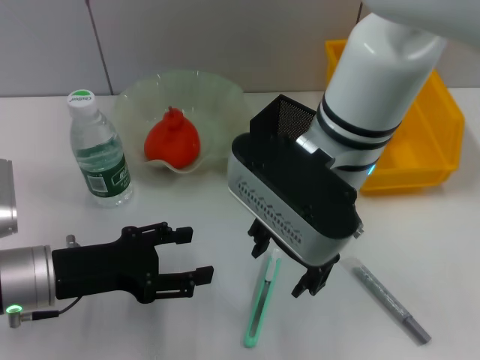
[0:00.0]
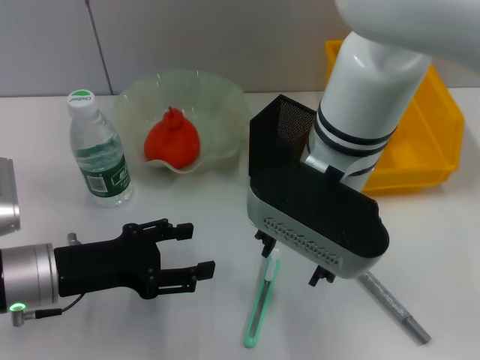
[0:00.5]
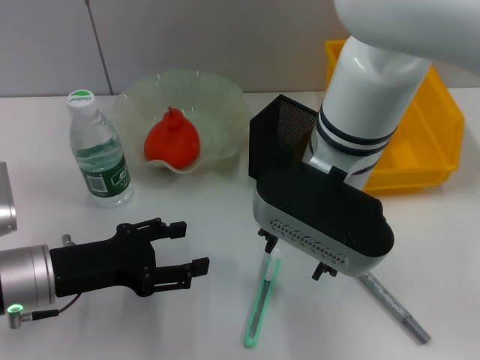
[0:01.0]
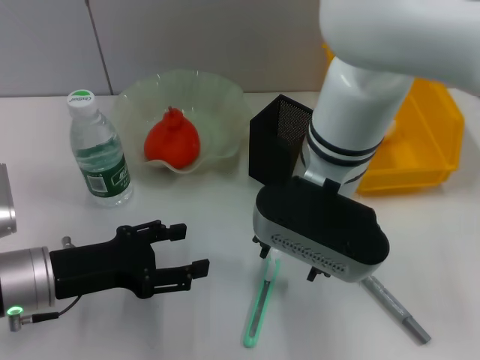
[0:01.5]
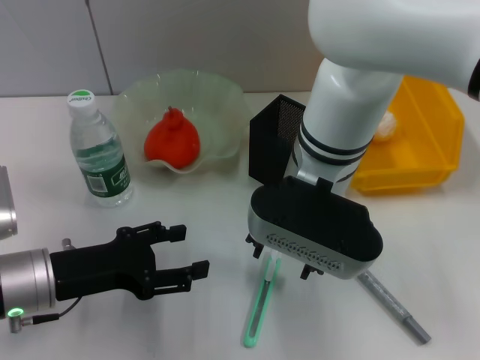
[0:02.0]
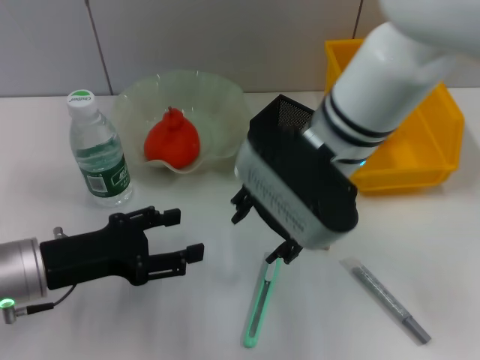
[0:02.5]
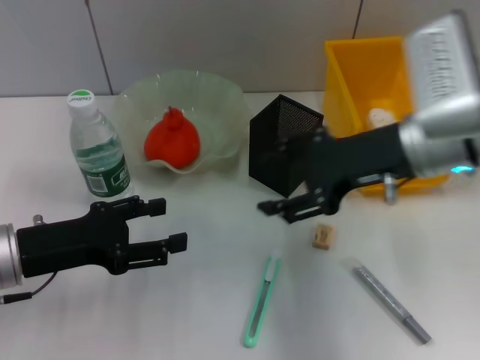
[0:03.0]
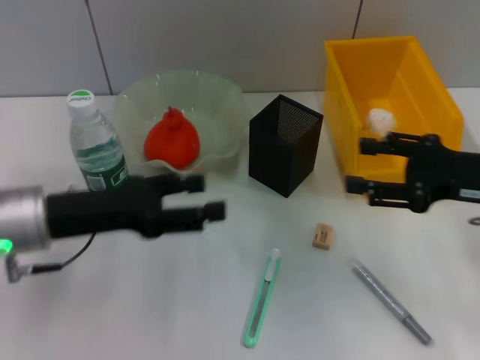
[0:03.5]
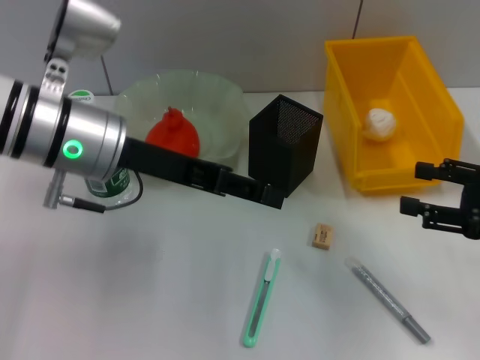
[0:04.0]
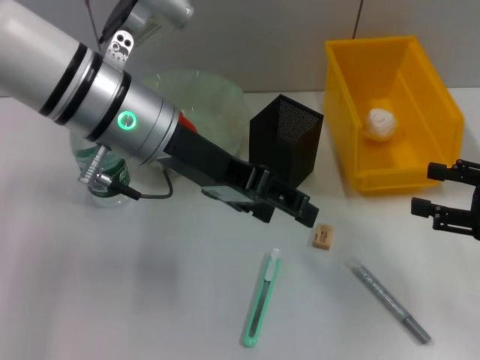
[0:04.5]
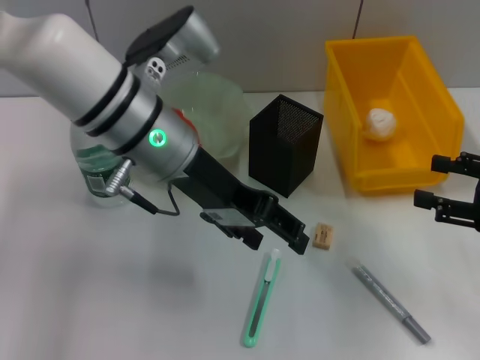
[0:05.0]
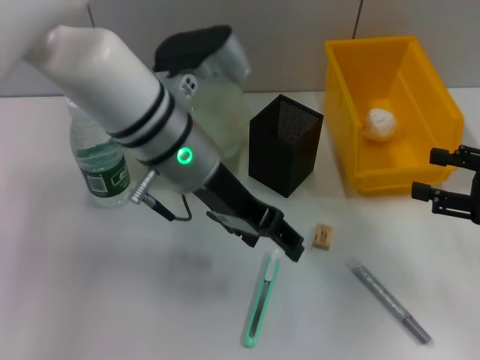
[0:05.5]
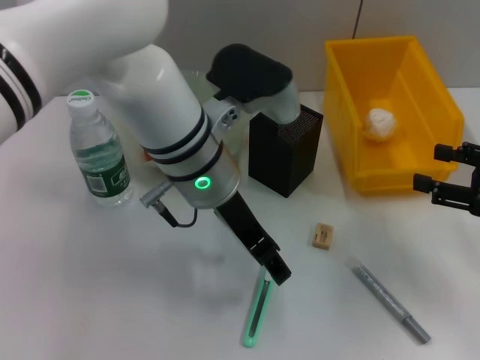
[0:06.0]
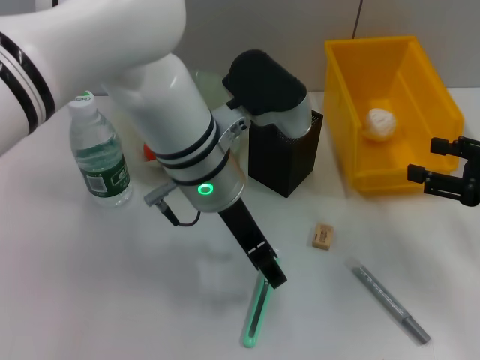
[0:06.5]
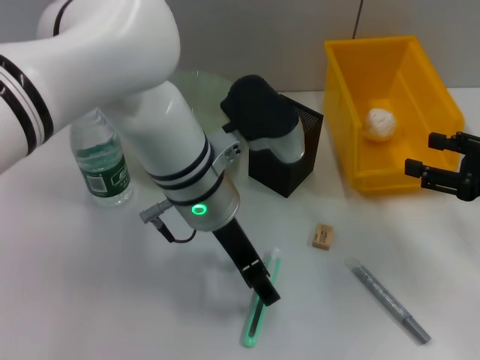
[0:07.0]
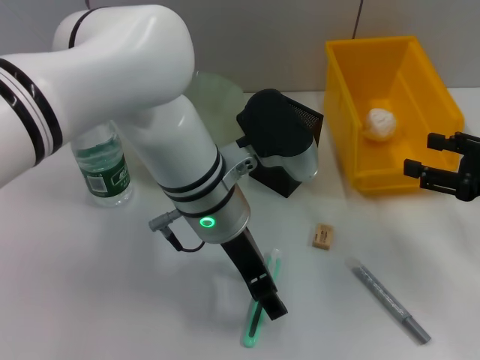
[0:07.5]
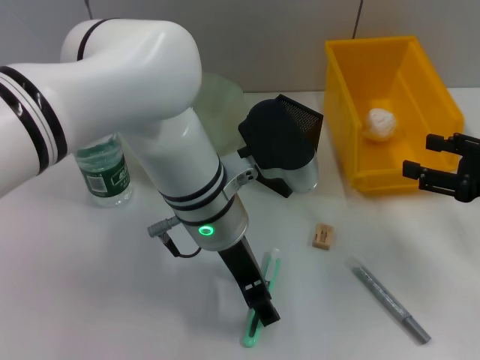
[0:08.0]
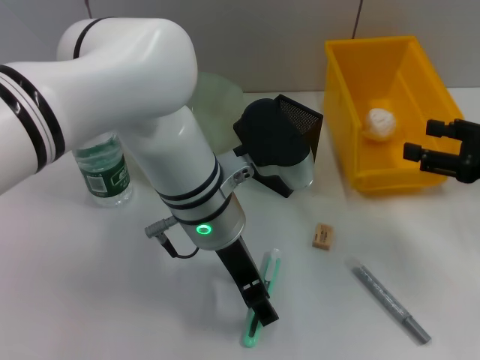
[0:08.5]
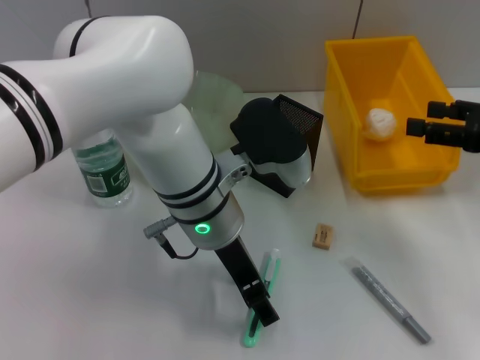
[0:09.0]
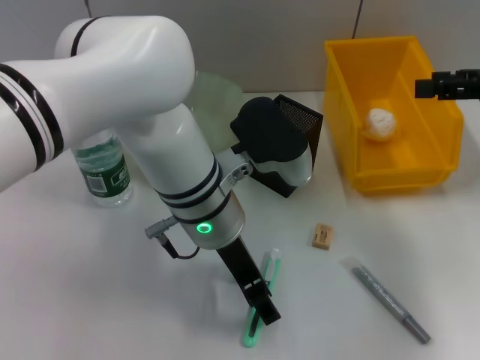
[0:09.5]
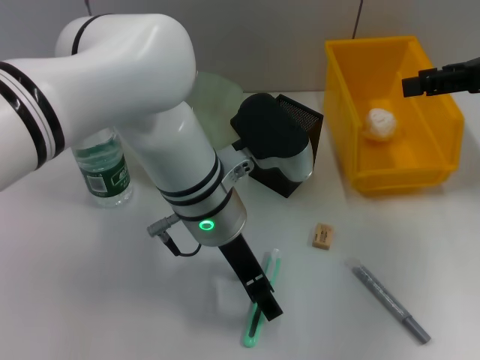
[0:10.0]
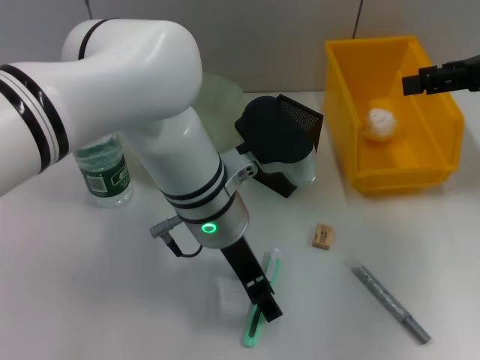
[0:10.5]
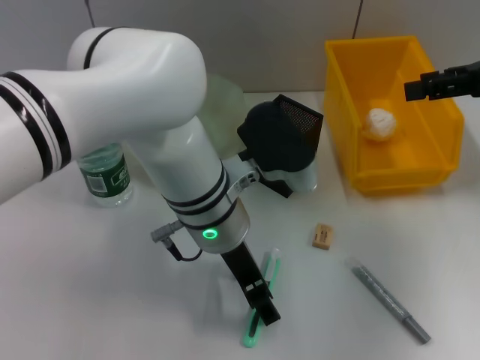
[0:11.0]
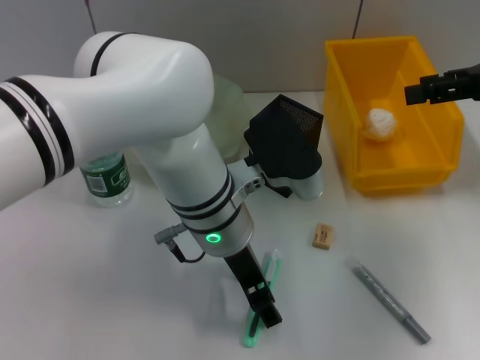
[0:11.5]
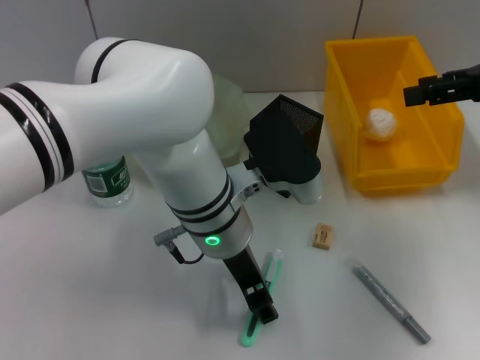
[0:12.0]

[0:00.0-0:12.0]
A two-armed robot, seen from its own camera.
0:02.0 to 0:04.0: The right gripper heads to the right, covering roughly 30 cm, while the left gripper heads upward, to the right and forward, covering about 15 cm.
0:04.0 to 0:06.0: The left gripper shifts some 10 cm to the right.
0:08.0 to 0:10.0: The right gripper goes about 15 cm upward and forward.
0:10.0 to 0:12.0: The grippers move only a little.

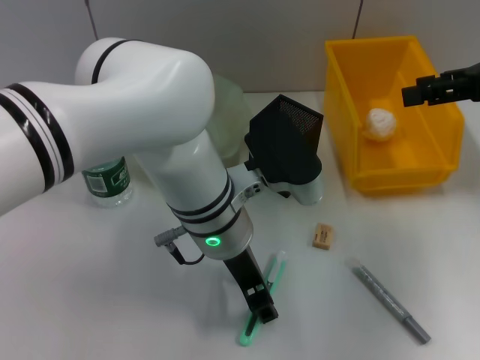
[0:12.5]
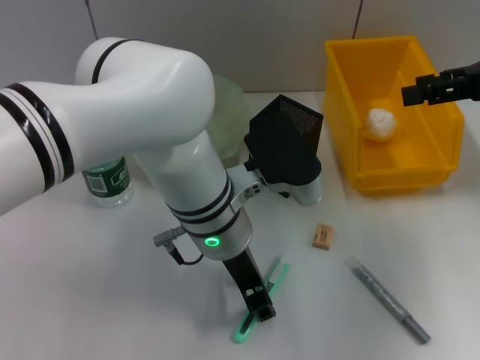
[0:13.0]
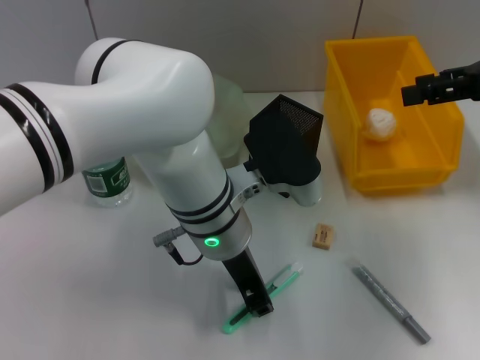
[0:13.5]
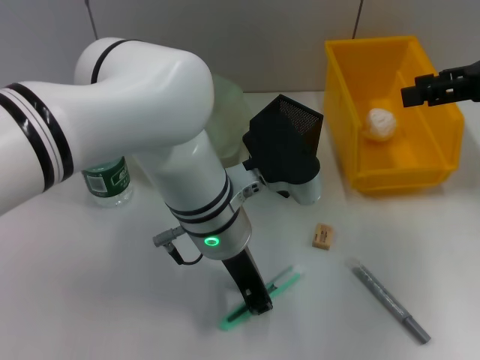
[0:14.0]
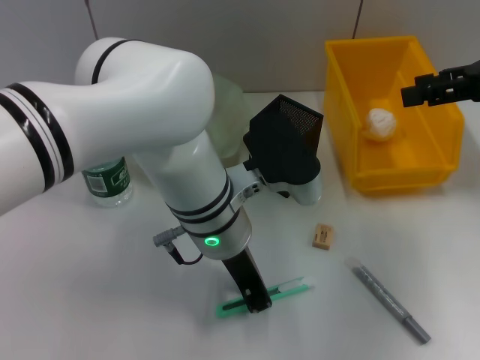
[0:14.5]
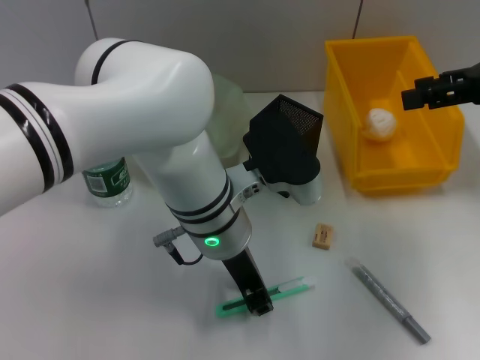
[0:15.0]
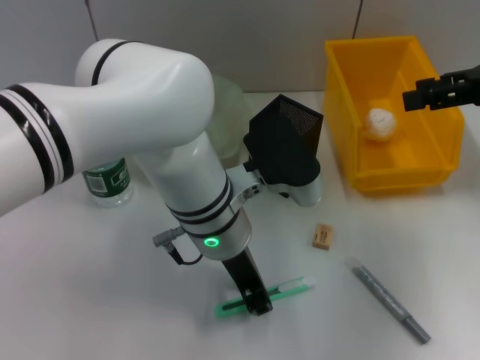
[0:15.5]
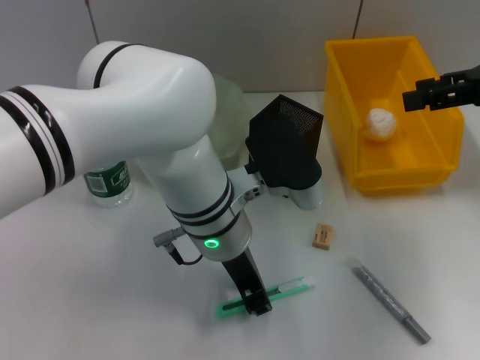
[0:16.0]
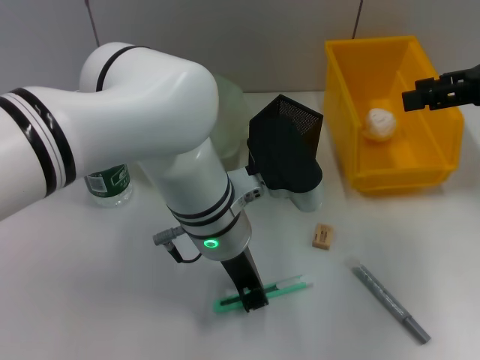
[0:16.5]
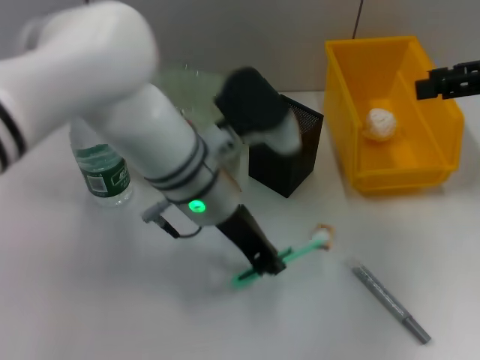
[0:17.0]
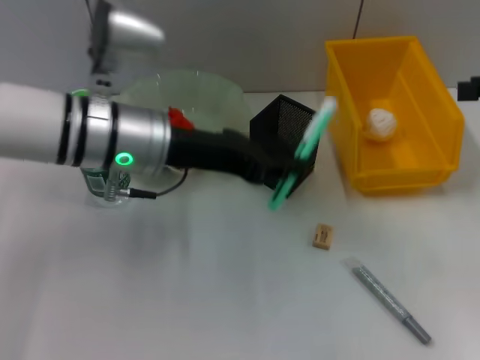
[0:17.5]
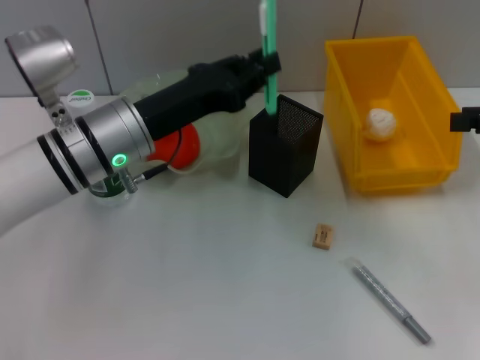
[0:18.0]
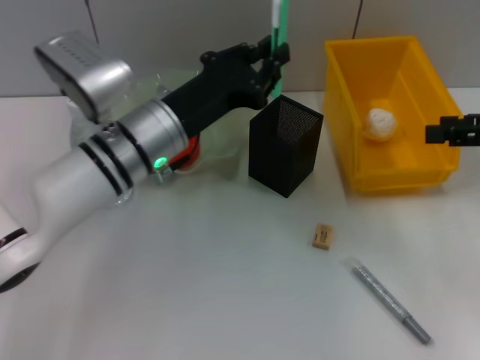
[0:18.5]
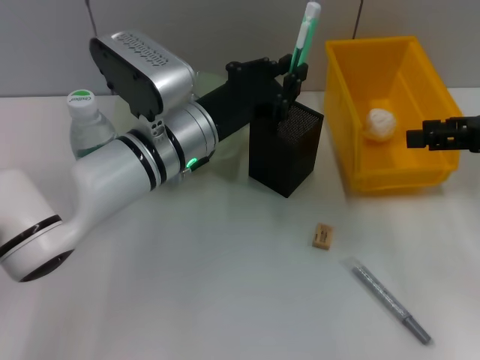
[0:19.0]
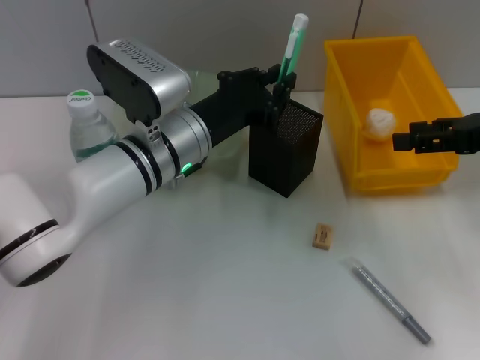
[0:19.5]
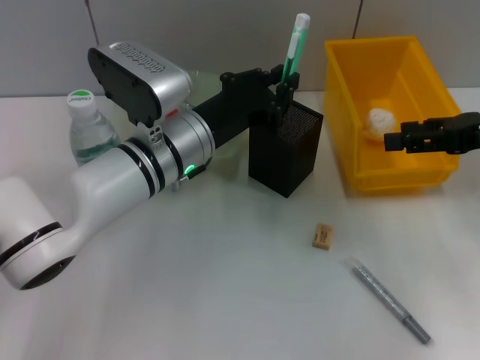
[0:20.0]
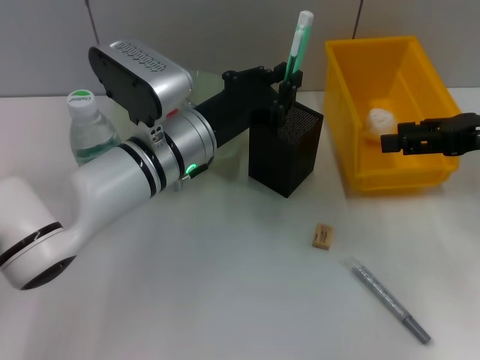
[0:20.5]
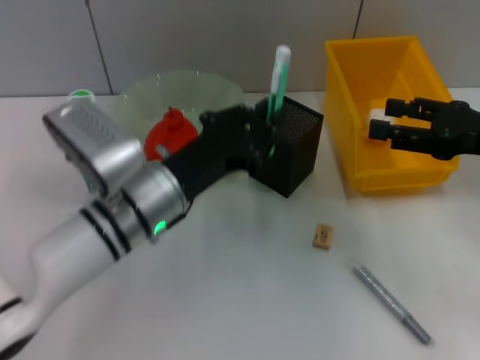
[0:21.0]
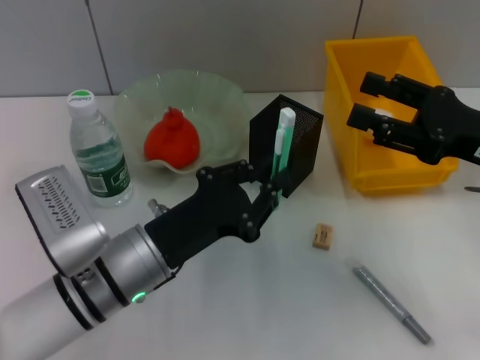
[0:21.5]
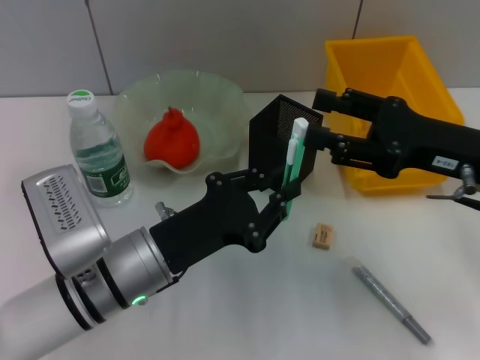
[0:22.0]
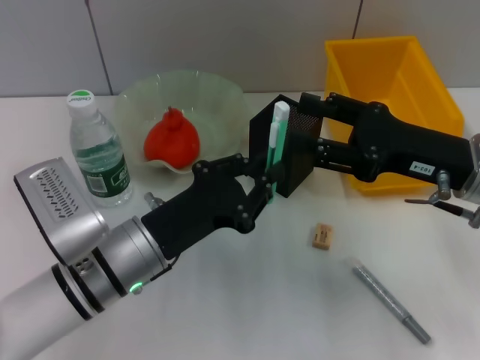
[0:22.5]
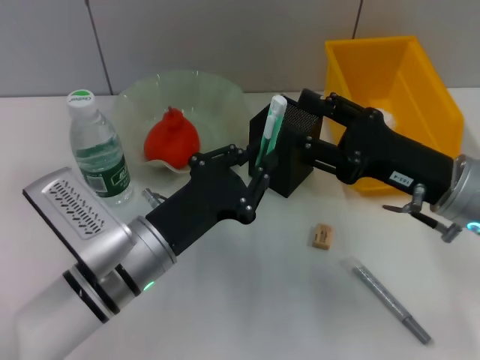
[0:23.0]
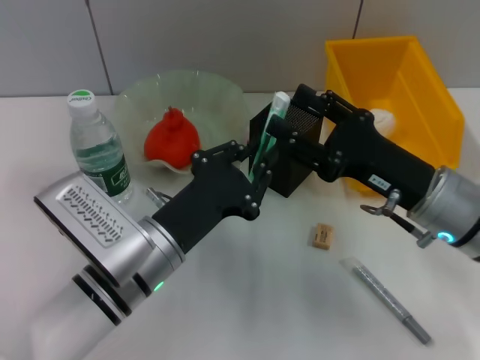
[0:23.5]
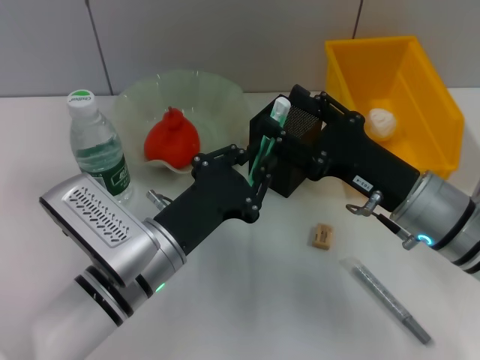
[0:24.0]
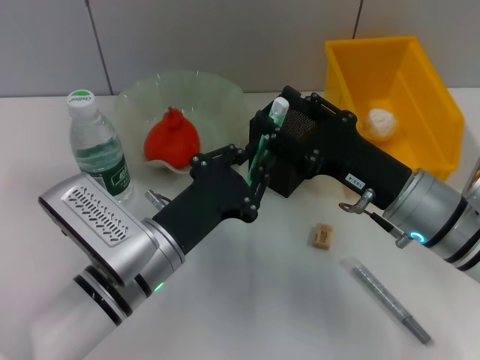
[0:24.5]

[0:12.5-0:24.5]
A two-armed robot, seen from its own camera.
Step, 0:12.5 to 0:16.0: Grab the blue utility knife with the left hand.
0:12.5 to 0:14.5: The left gripper closes.
0:14.5 to 0:16.5: Neither gripper changes place.
0:16.5 to 0:18.5: The right gripper moves downward, approximately 5 cm; the left gripper heads to the left, covering approximately 10 cm.
0:18.5 to 0:20.5: There are only small adjustments of the grippers.
0:20.5 to 0:22.5: The right gripper travels to the left by approximately 10 cm, while the left gripper shifts about 10 cm backward.
0:22.5 to 0:24.5: The right gripper shifts some 5 cm to the left and downward.

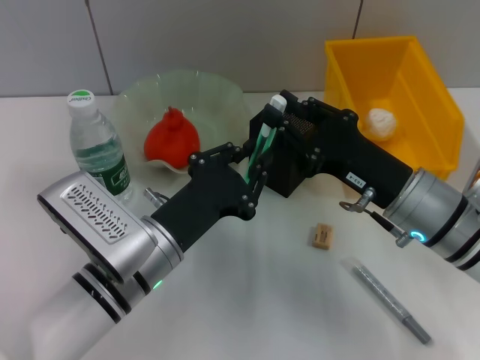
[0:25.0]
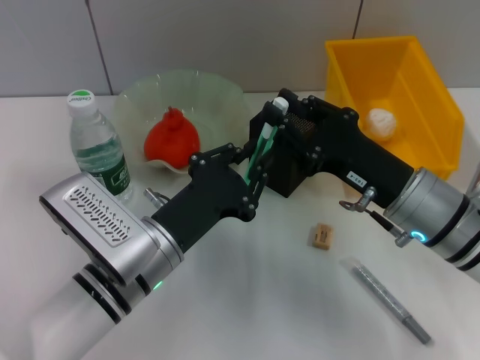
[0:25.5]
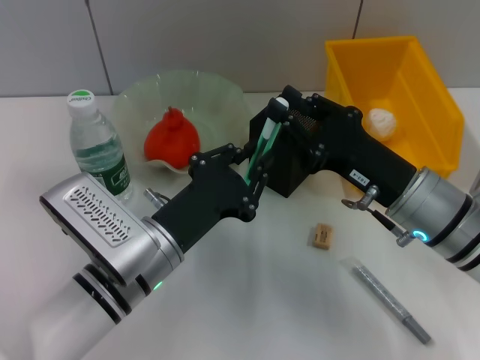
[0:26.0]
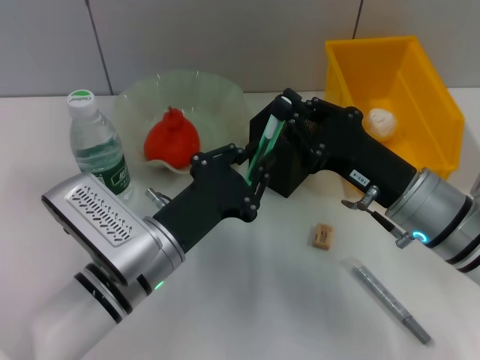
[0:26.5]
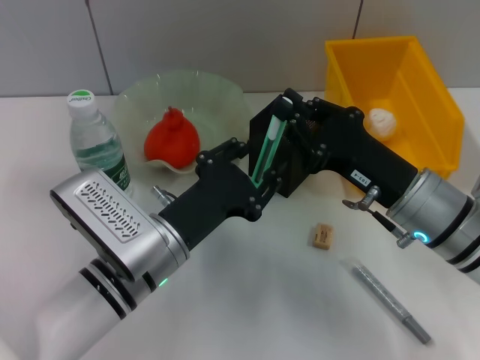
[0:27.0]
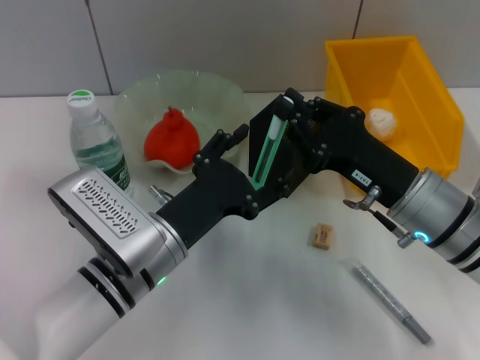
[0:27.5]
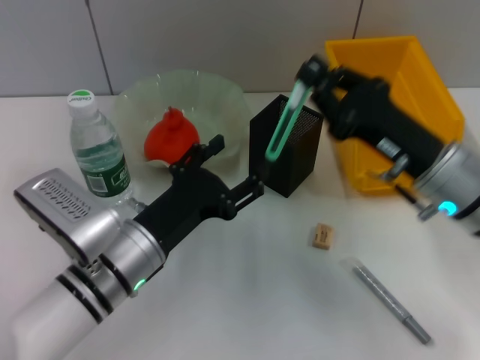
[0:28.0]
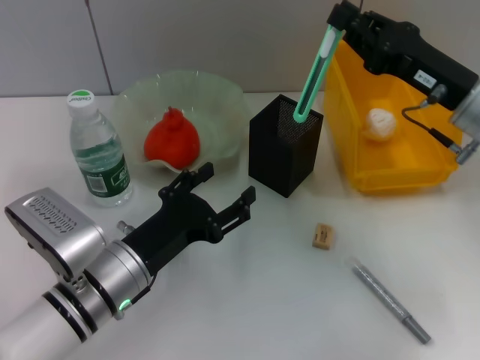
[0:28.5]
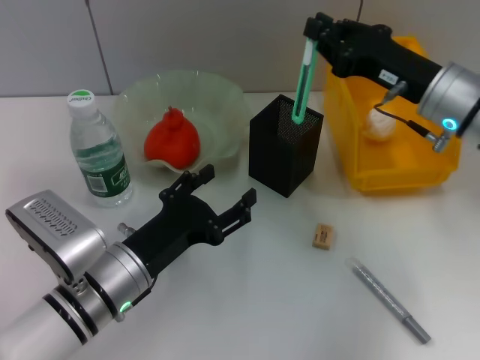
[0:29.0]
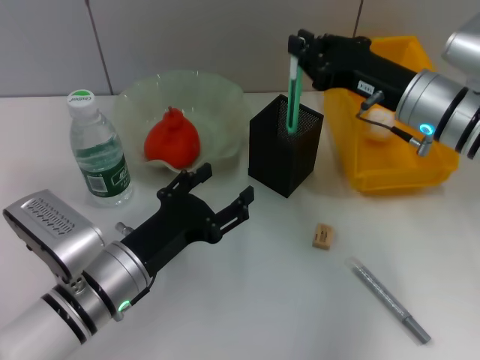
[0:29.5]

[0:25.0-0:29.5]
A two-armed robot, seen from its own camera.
Step, 0:25.0 to 0:27.0: Pass the blue utility knife from the left hand to the right hand.
0:25.0 to 0:27.0: The right gripper closes its fingers.
0:27.0 to 0:29.5: The left gripper opens. The right gripper shifts roughly 10 cm forward.
